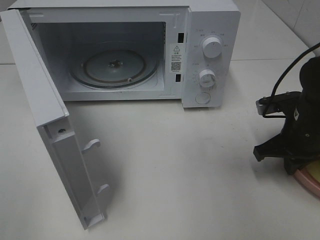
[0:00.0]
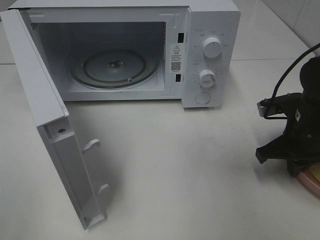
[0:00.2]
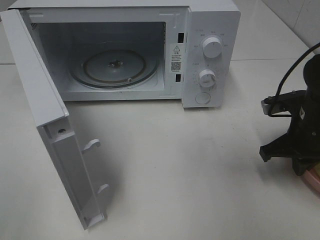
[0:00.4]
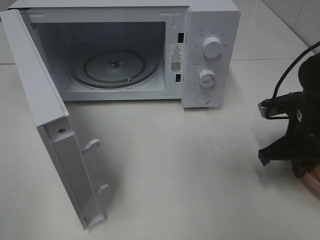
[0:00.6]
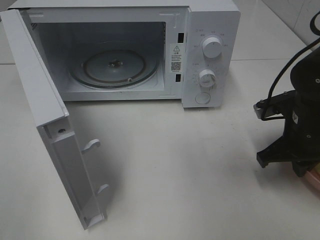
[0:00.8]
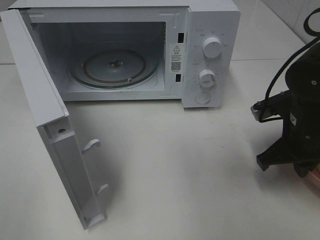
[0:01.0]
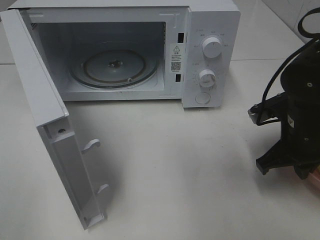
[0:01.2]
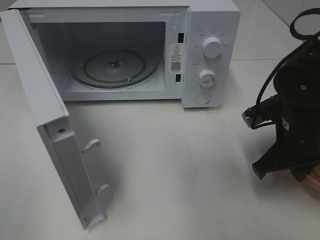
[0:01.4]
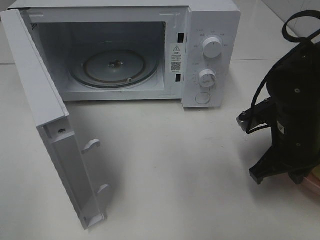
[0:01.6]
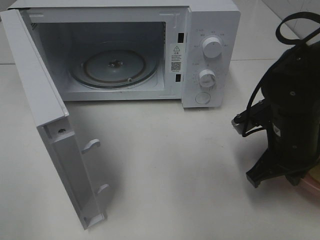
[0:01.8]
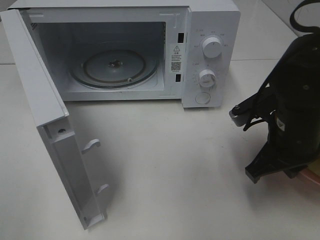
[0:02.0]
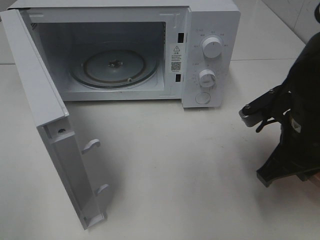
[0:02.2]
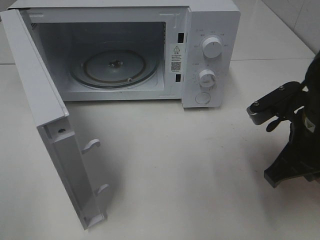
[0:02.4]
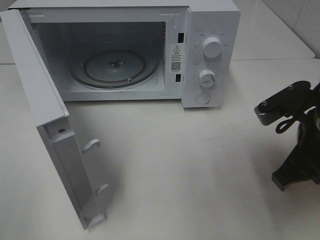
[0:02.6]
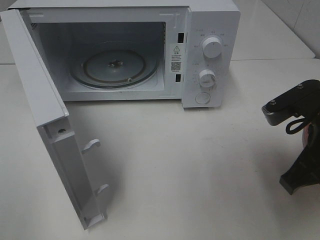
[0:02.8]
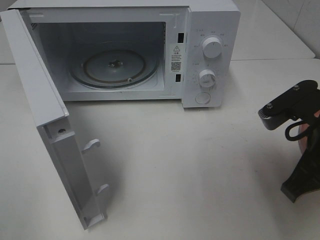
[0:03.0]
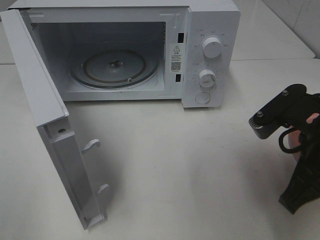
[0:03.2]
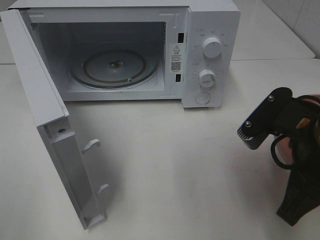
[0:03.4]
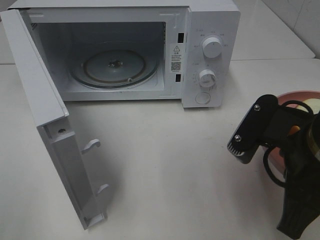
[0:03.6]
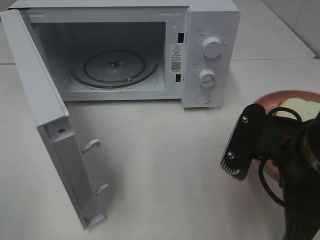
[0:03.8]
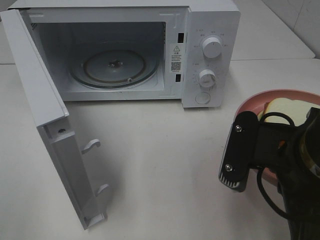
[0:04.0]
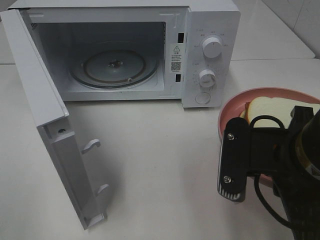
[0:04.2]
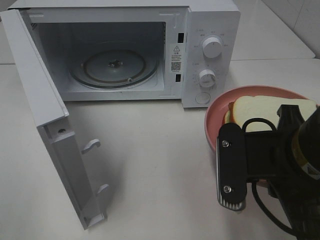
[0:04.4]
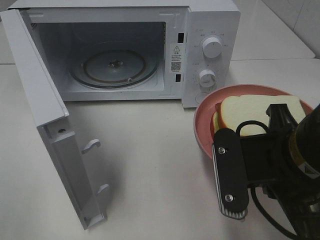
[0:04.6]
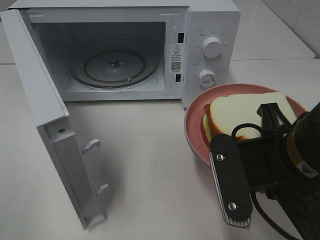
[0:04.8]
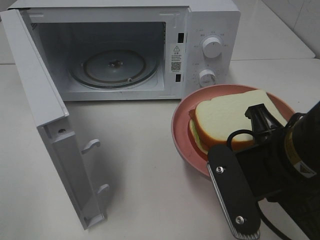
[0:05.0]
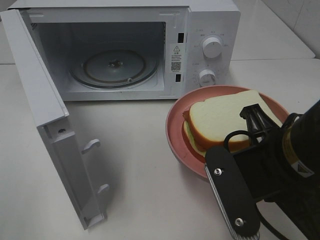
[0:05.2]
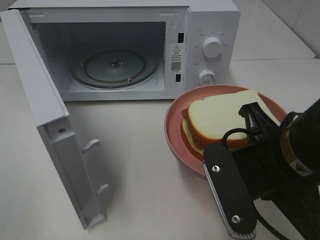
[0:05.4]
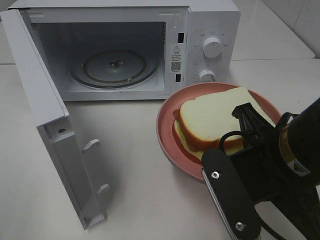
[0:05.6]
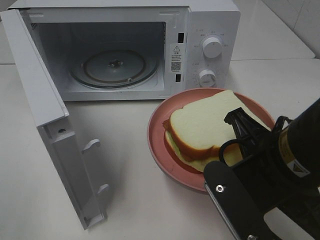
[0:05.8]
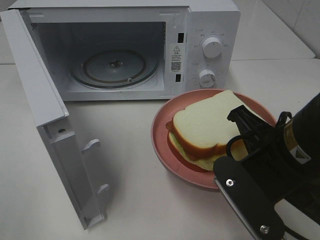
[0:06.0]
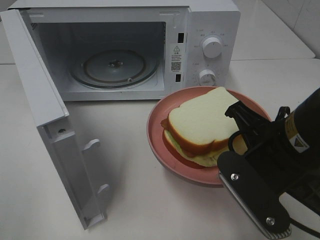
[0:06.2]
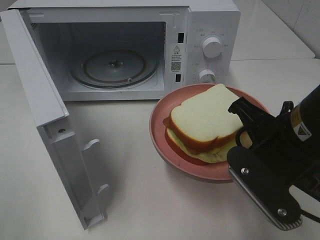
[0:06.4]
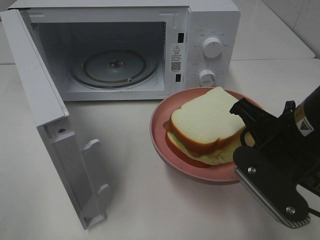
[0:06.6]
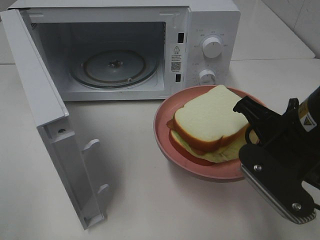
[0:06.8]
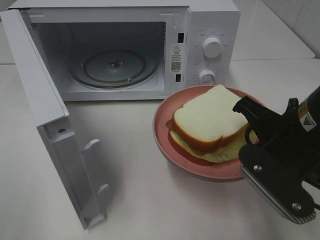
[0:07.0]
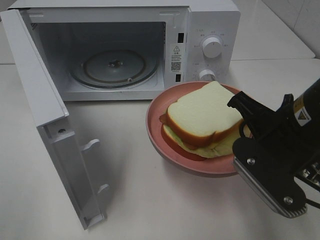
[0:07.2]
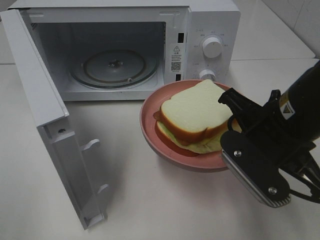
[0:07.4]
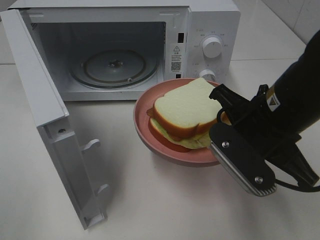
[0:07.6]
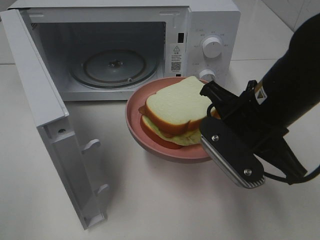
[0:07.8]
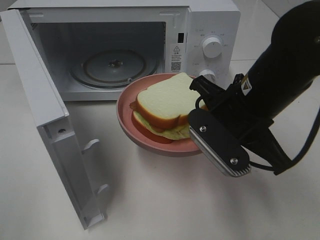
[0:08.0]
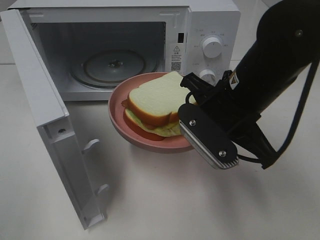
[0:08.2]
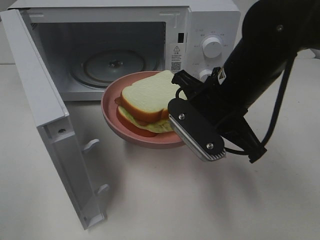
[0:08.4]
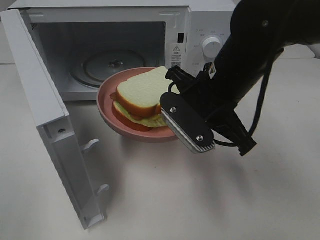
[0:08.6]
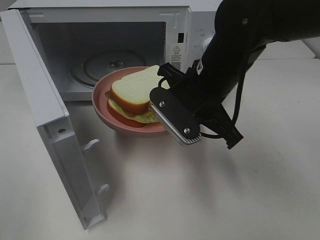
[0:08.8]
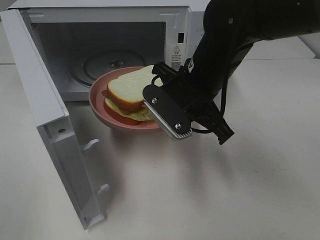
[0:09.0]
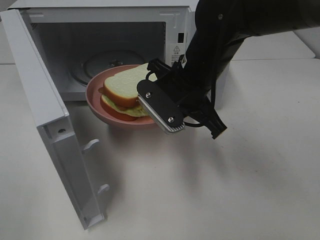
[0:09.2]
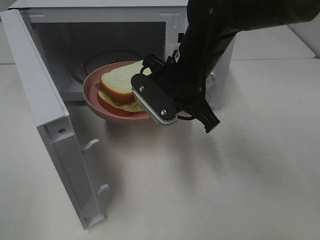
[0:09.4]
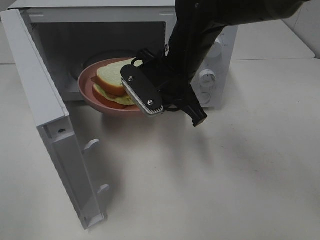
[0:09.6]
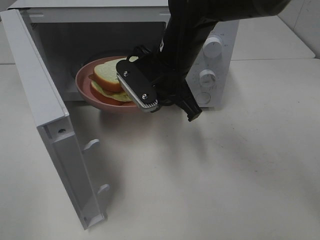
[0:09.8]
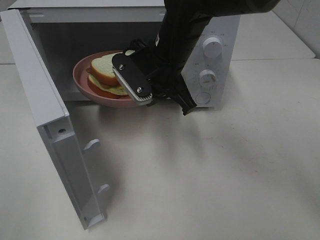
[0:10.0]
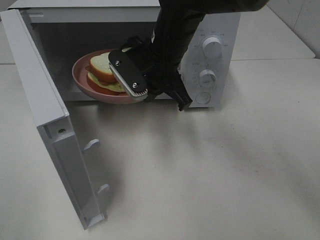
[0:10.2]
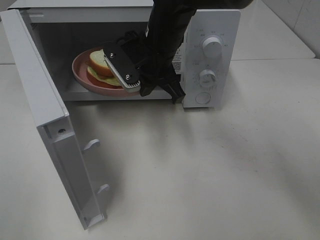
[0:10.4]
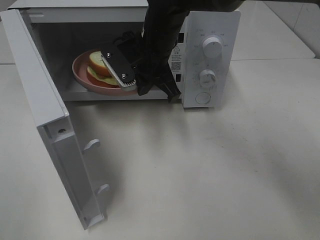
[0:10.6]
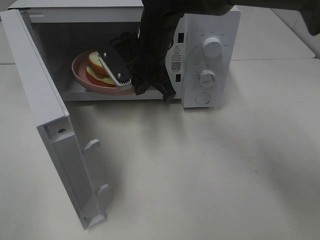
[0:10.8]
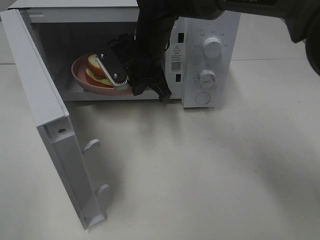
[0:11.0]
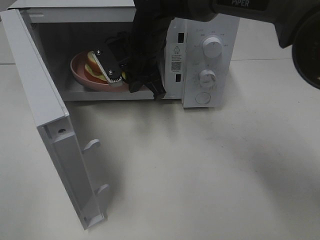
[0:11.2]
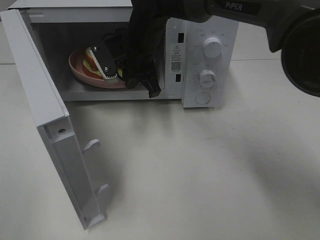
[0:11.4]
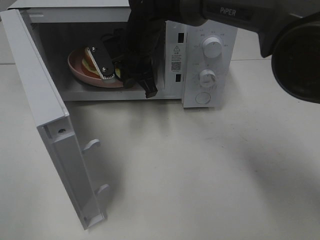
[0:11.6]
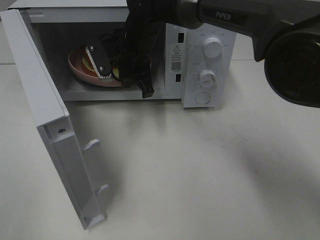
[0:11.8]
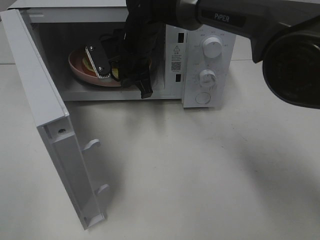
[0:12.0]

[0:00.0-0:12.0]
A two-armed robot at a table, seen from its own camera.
Task of the whole recording: Heat Sandwich.
0:00.0 to 0:01.6: The right gripper ends up about 5 cm from where it was.
0:01.6 to 0:03.0: The right gripper heads upward and backward, covering roughly 10 cm.
0:03.0 to 0:04.4: The right gripper moves to the left, roughly 5 cm.
0:06.0 to 0:07.6: The right gripper shifts roughly 5 cm forward.
0:07.6 to 0:09.0: The right gripper shifts about 10 cm forward and to the left.
0:09.0 to 0:10.4: The right gripper is displaced forward and to the left by some 10 cm.
0:10.4 to 0:12.0: The right gripper moves forward, about 5 cm.

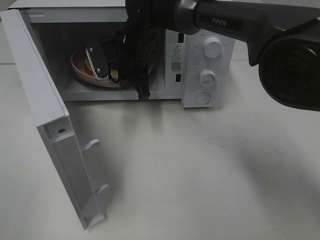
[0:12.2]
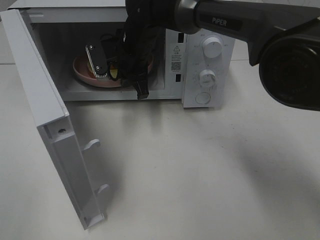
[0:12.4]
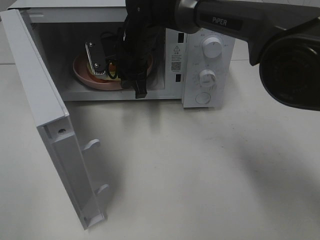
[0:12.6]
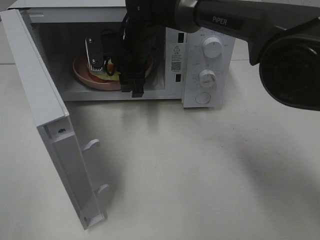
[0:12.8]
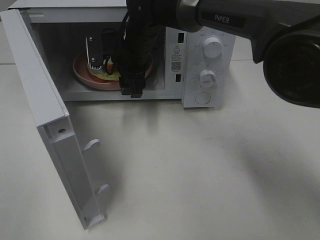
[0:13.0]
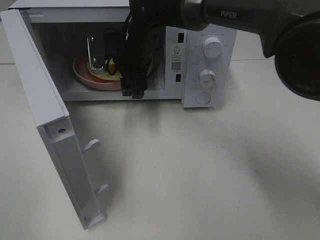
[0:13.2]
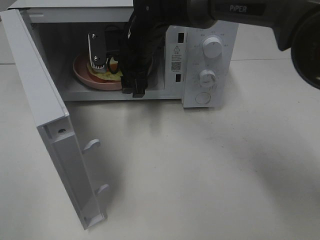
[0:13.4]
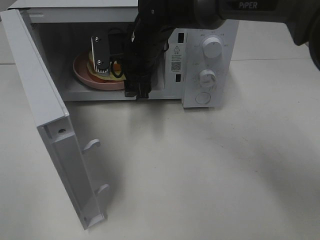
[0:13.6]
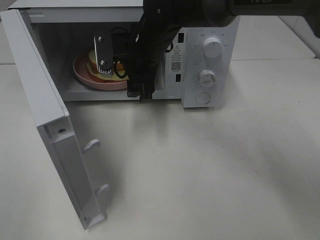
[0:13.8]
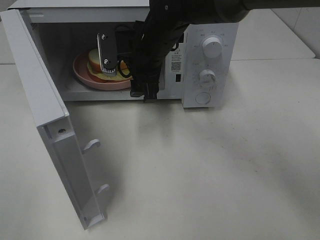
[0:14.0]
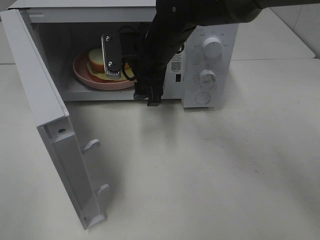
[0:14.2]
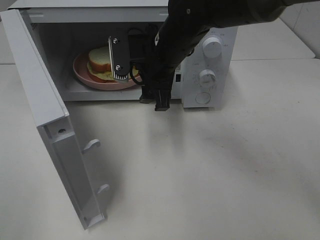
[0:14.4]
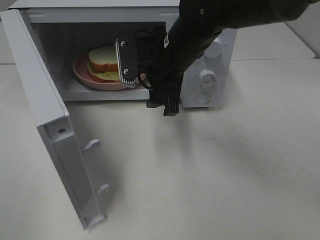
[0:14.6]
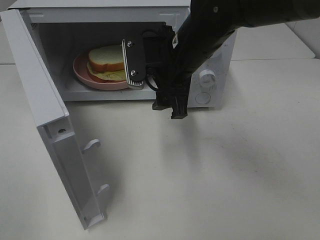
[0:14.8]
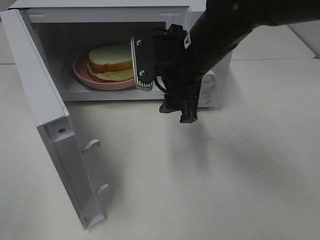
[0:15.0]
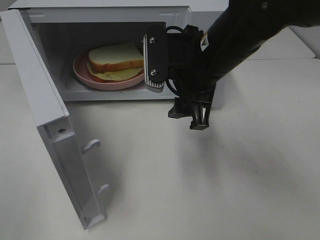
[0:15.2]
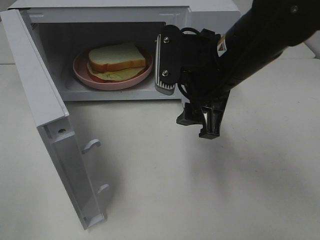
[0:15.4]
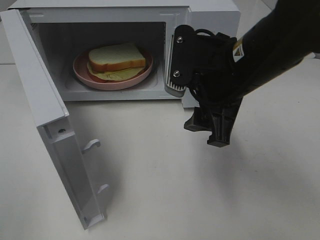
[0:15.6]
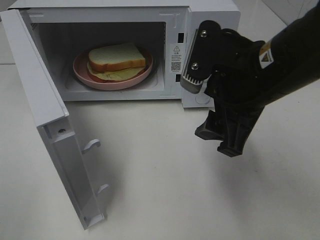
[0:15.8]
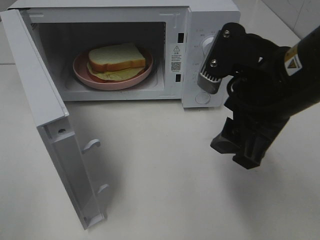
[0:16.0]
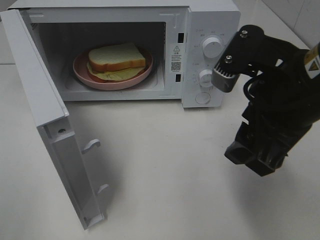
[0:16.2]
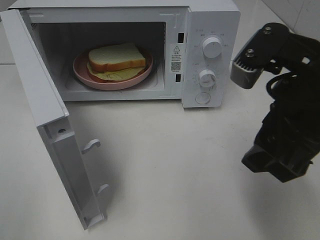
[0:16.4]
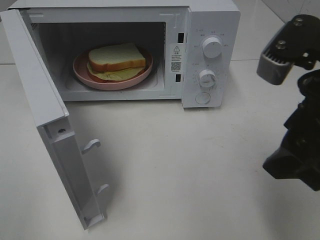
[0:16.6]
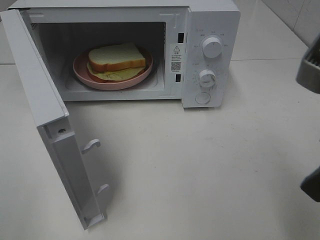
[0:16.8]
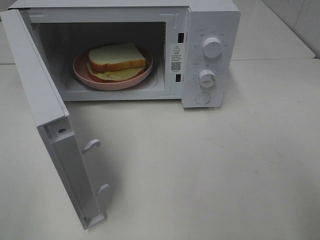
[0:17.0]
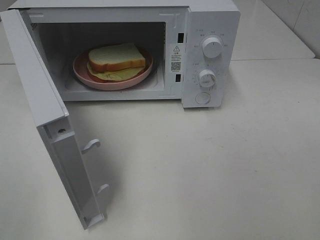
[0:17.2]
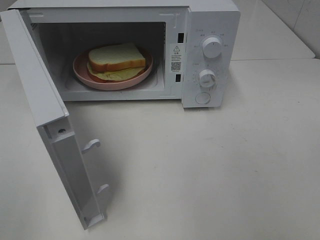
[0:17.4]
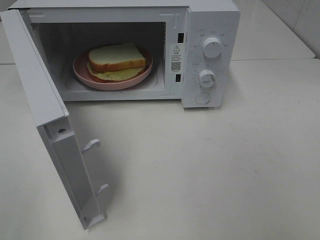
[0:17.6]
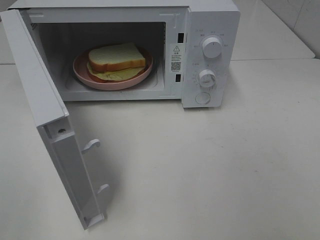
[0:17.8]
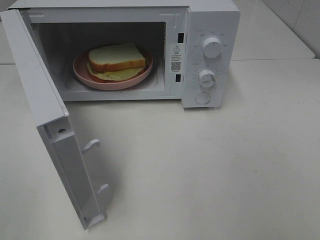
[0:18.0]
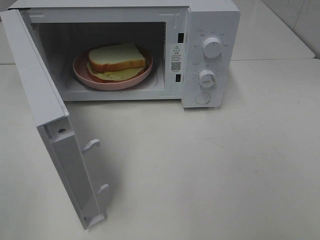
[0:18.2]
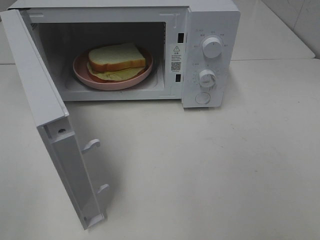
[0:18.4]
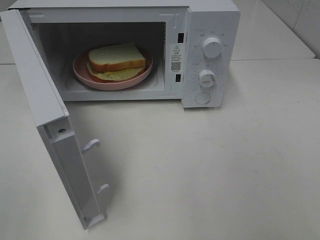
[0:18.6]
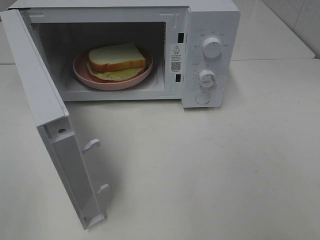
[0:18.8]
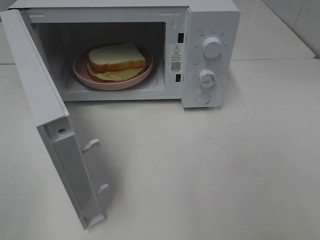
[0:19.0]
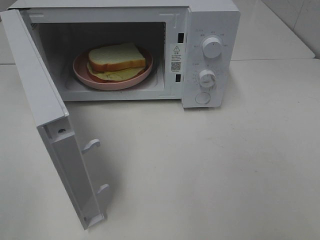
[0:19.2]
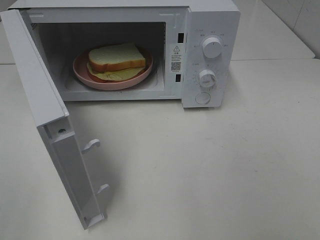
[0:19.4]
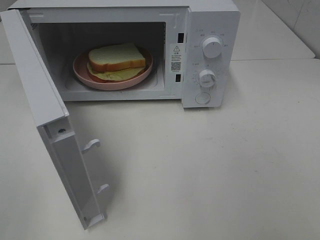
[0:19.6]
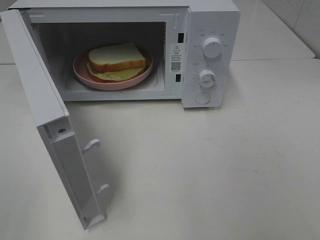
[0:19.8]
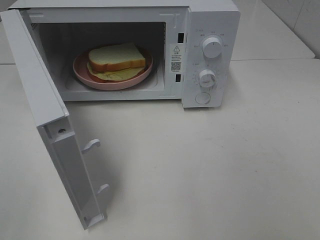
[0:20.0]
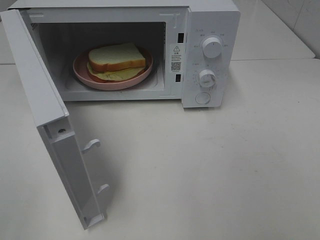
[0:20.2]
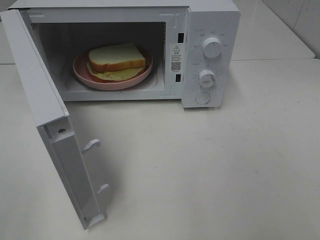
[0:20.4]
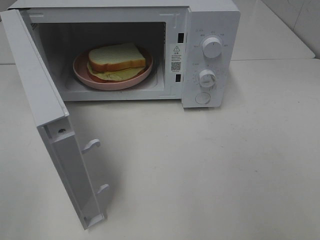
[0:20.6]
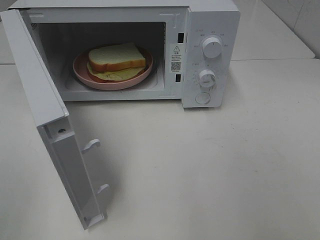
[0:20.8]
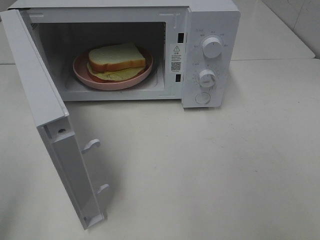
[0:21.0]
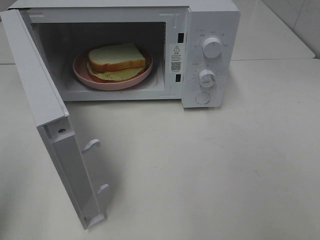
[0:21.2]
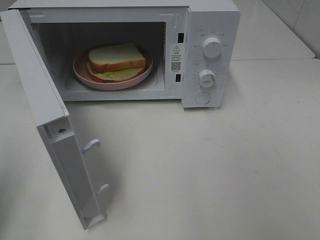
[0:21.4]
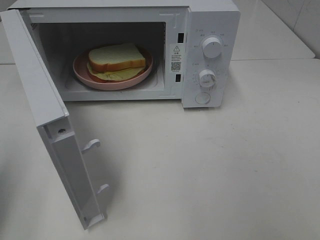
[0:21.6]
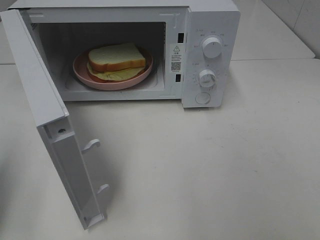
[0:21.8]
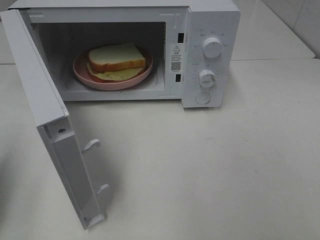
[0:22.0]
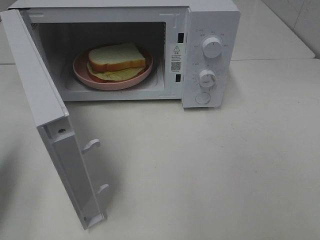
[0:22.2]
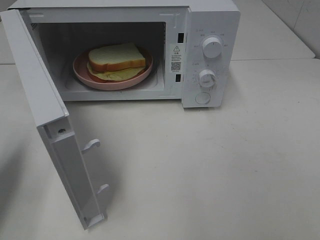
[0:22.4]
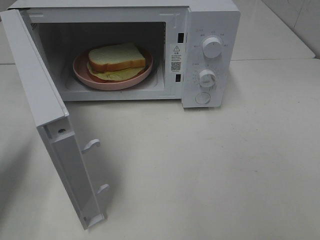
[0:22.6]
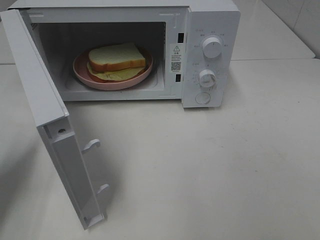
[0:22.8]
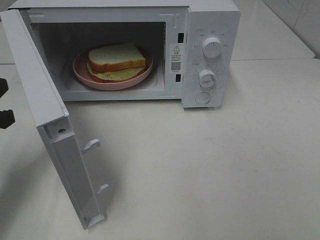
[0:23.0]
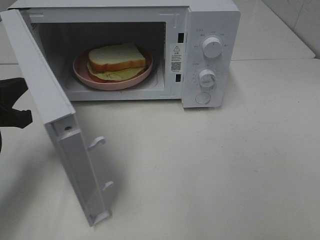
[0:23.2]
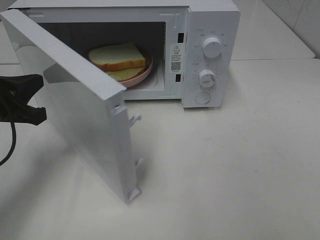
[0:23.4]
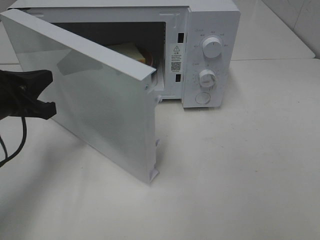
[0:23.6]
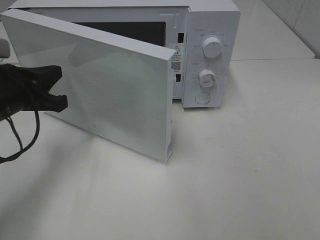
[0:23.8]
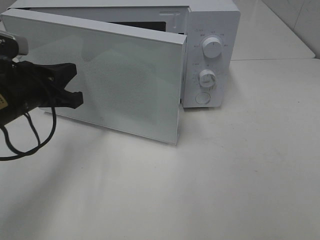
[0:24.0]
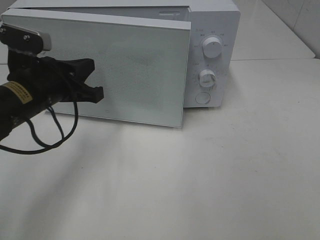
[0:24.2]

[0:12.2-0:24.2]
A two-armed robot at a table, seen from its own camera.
Task of the whole recording: Heat Sandwich.
0:12.2 to 0:13.8: The right gripper opens up.
0:13.8 to 0:15.2: The right gripper heads backward and to the right, covering roughly 15 cm.
0:15.2 to 0:16.6: The right gripper is displaced backward, to the right and upward by some 20 cm.
0:16.6 to 0:18.2: The right gripper moves backward and to the right, about 20 cm.
0:21.2 to 0:22.6: The left gripper is displaced forward and downward by some 15 cm.
0:22.6 to 0:24.2: The left gripper heads to the right and forward, covering approximately 15 cm.
